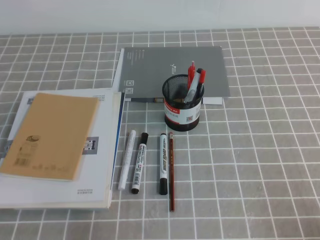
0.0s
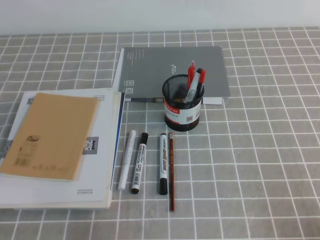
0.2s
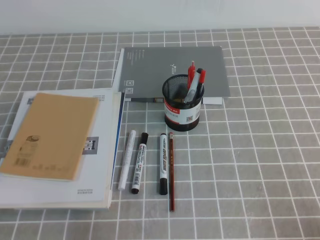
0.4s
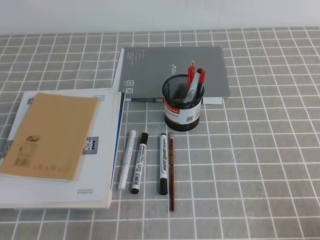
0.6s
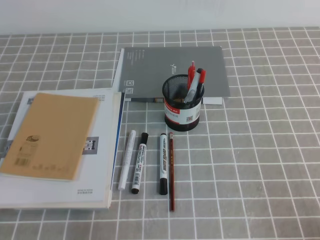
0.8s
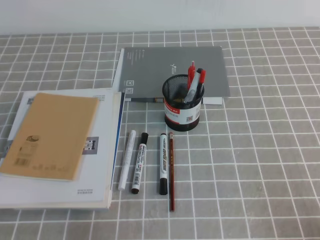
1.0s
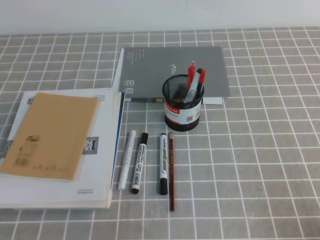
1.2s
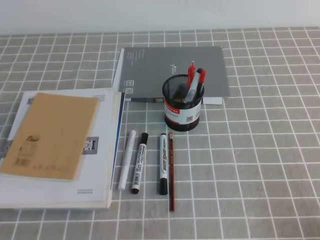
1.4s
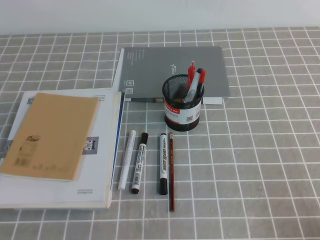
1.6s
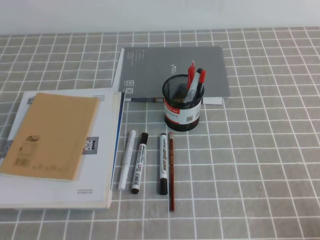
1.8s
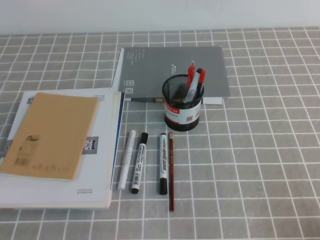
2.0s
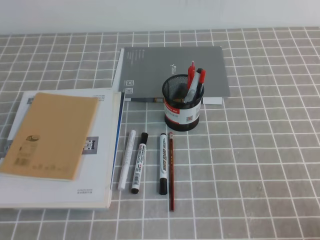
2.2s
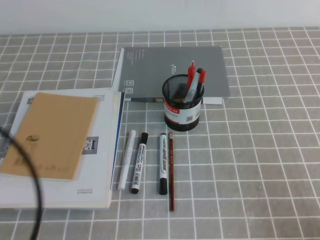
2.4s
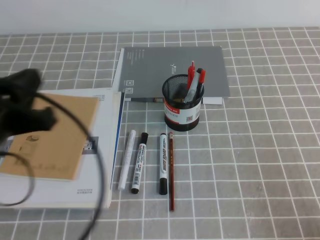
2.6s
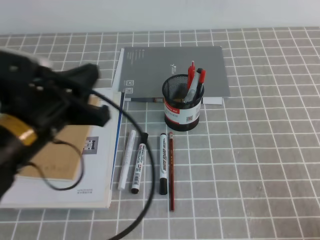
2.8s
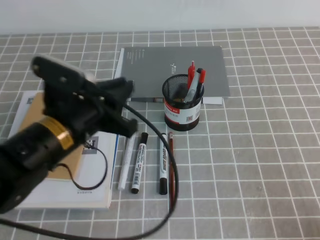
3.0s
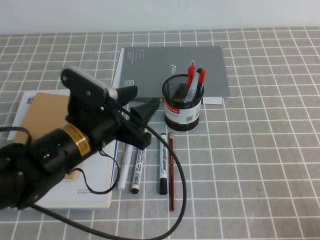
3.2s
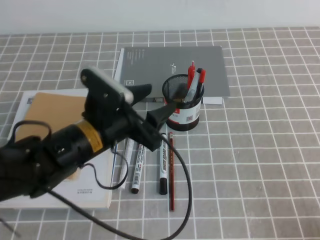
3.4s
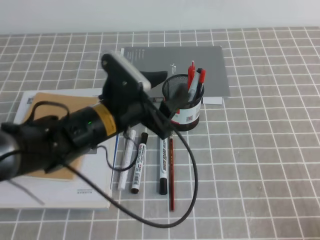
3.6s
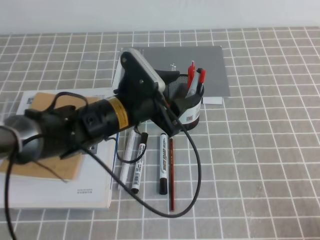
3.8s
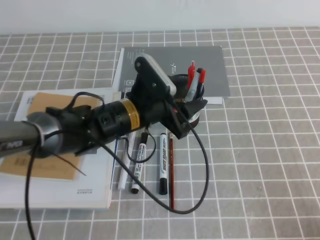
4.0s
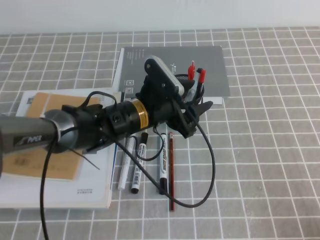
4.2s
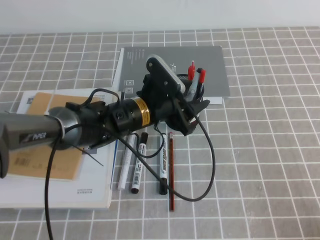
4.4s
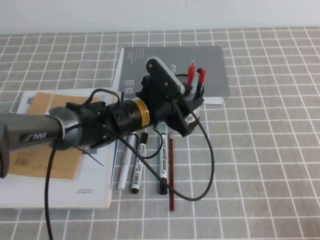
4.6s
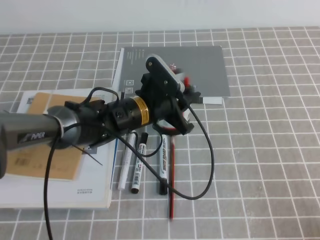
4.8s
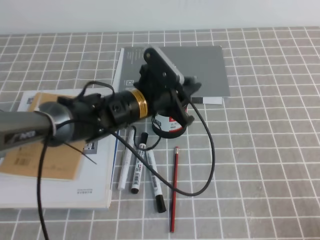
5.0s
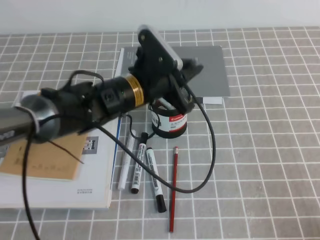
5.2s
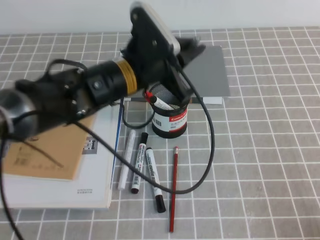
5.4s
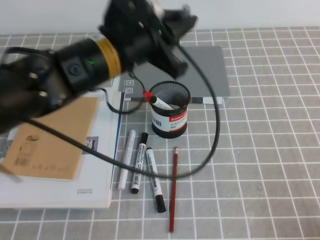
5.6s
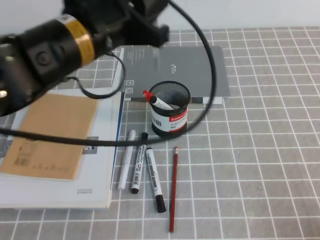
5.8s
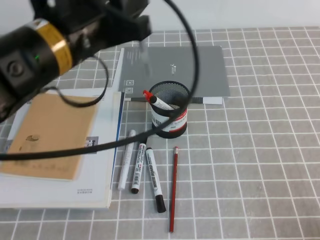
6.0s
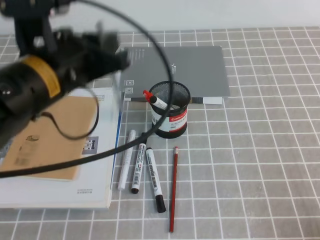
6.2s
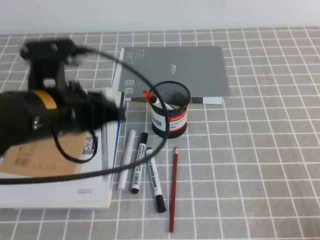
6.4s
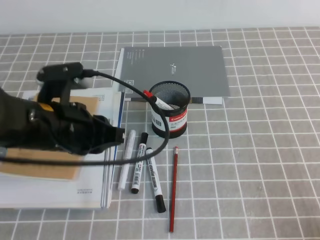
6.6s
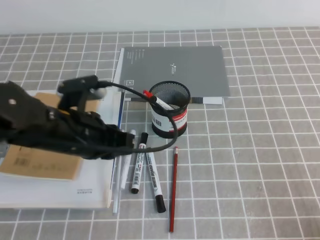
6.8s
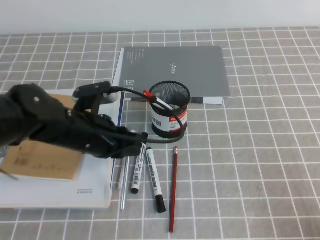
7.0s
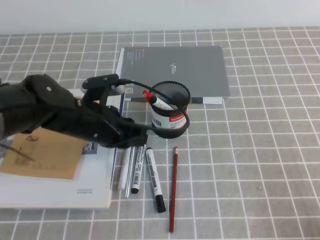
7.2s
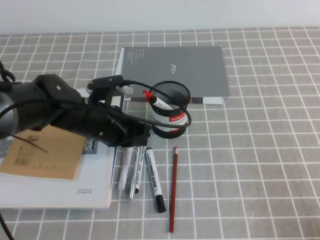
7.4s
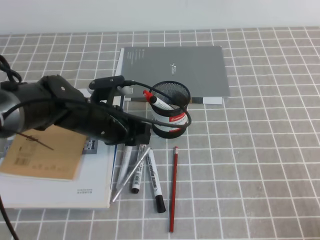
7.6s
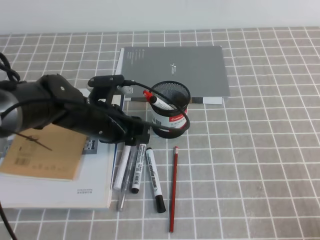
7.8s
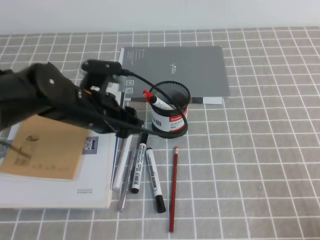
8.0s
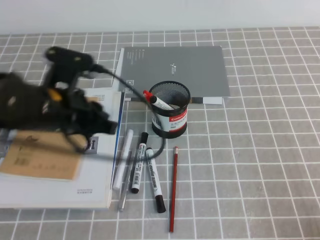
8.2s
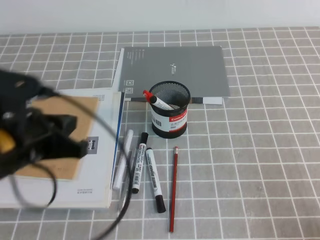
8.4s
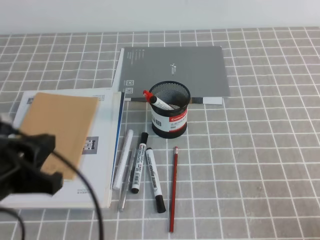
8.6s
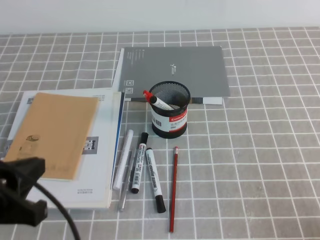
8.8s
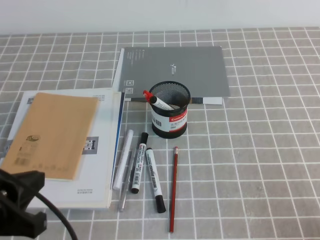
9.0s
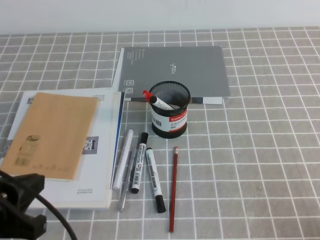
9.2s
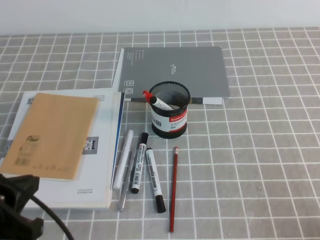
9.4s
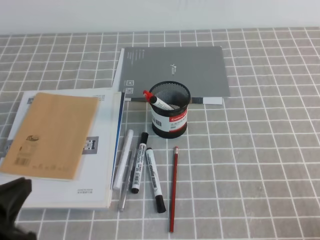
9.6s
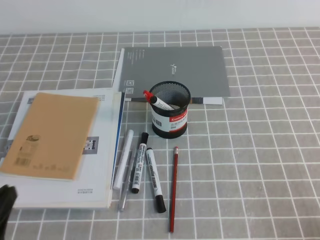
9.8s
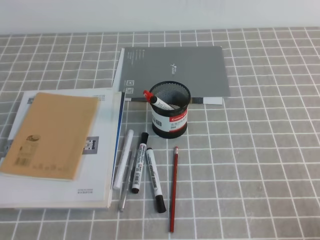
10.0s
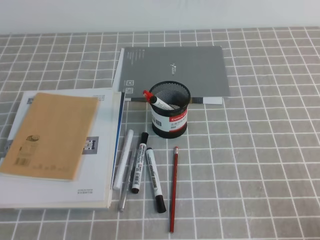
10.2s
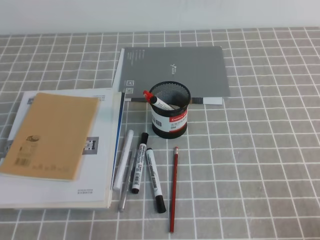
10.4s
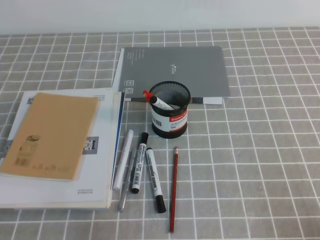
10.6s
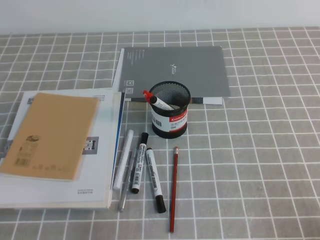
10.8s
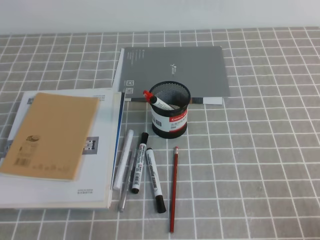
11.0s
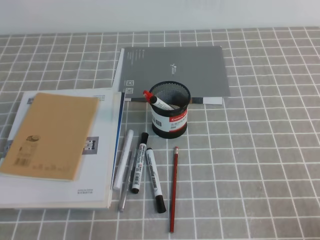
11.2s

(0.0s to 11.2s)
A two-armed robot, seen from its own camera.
Step, 0.0s - 11.2s: Pick up the pen from the pen holder.
1.6s - 3.2s: The left gripper moves forward and to the right, roughly 25 cm, and opens.
3.2s - 4.8s: The left gripper moves forward, to the right and downward, roughly 15 cm, and opens, then closes once more.
4.8s - 6.4s: The left gripper goes approximately 20 cm upward, to the left and backward.
6.4s - 8.0s: The left gripper shifts approximately 10 cm downward and forward, and opens.
8.0s - 9.6s: The left gripper shifts about 25 cm backward and to the left, and closes.
9.6s - 11.2s: The left gripper goes roughly 10 cm downward.
